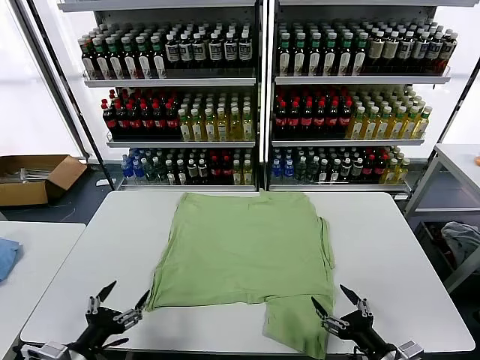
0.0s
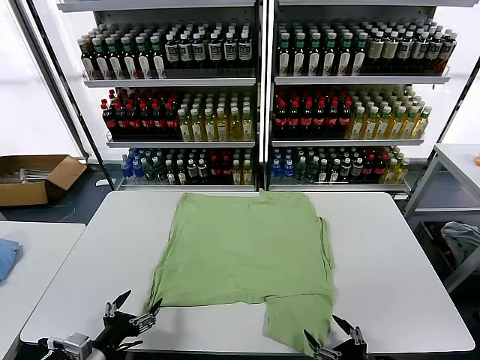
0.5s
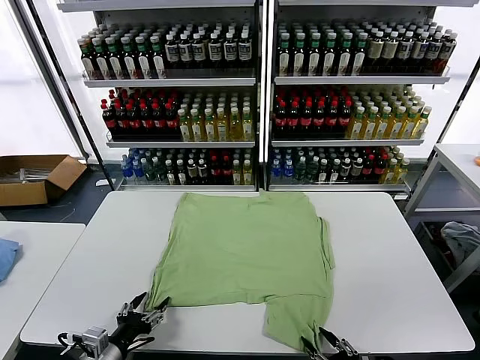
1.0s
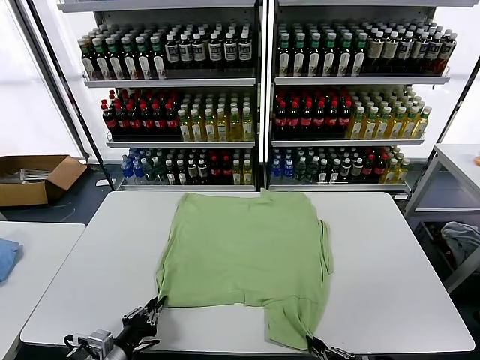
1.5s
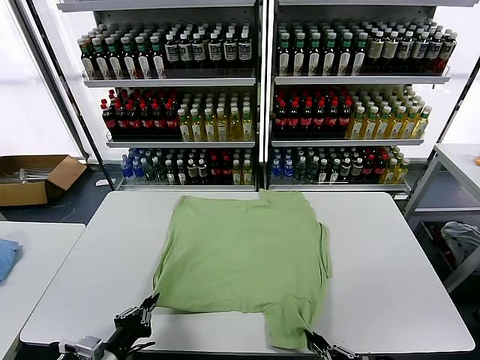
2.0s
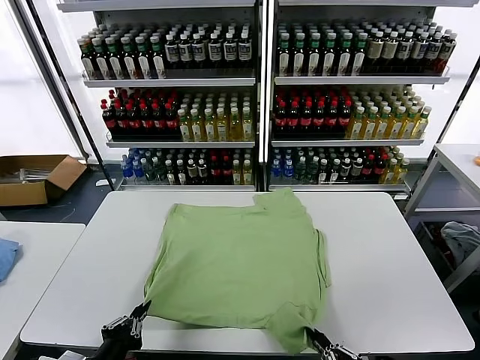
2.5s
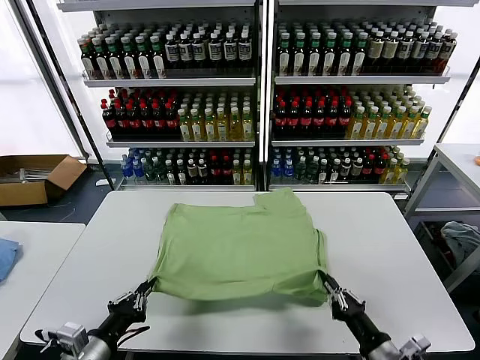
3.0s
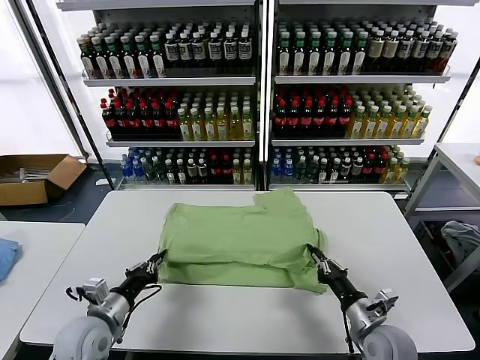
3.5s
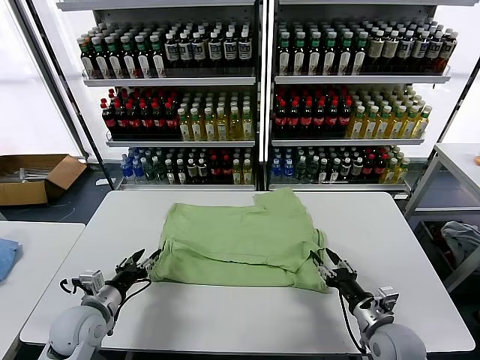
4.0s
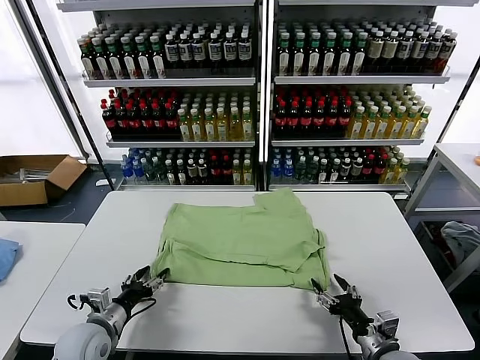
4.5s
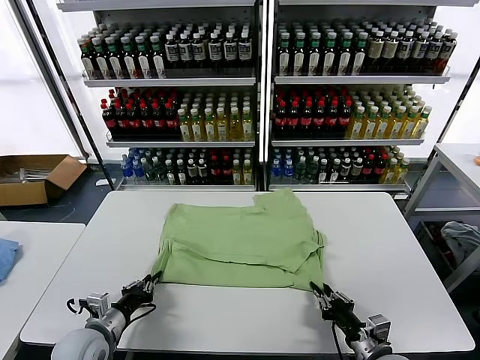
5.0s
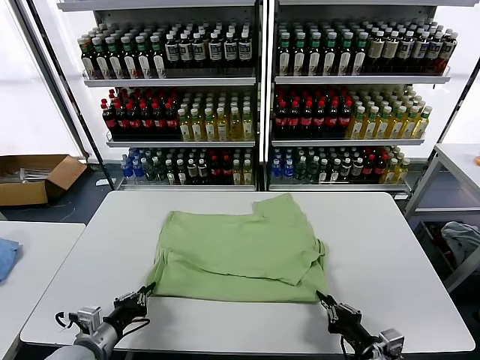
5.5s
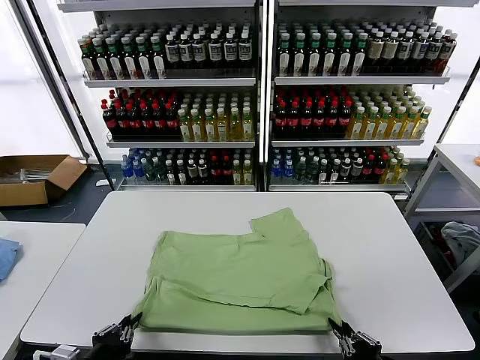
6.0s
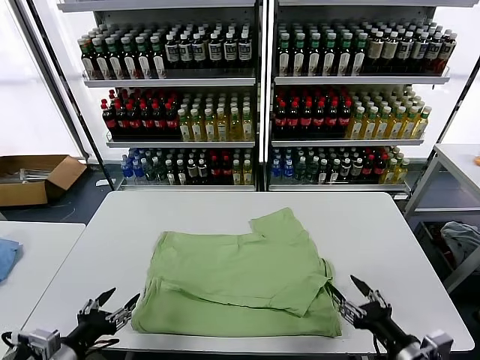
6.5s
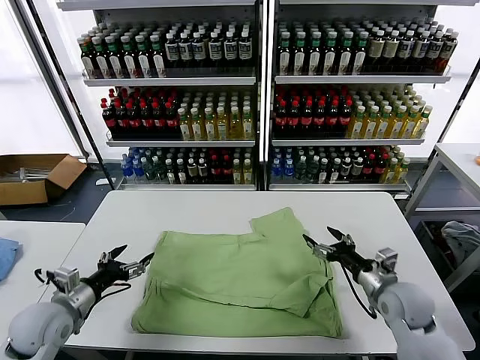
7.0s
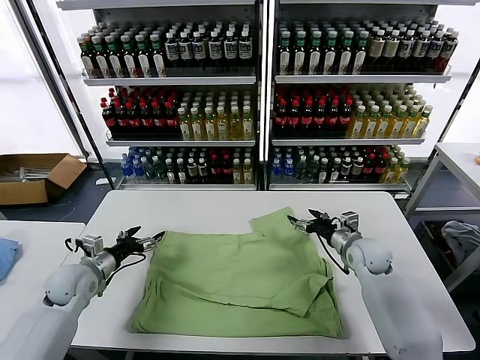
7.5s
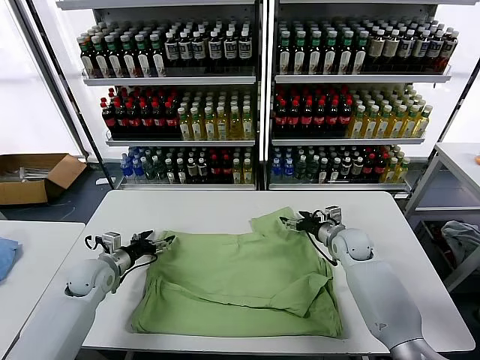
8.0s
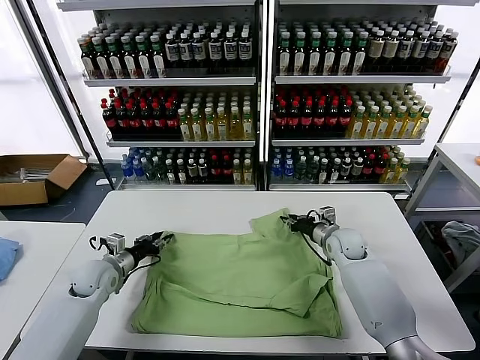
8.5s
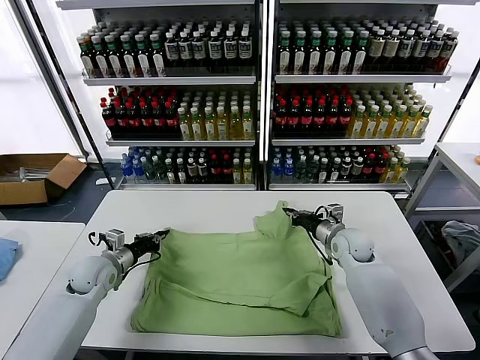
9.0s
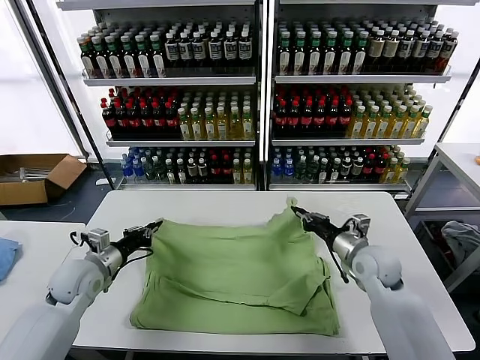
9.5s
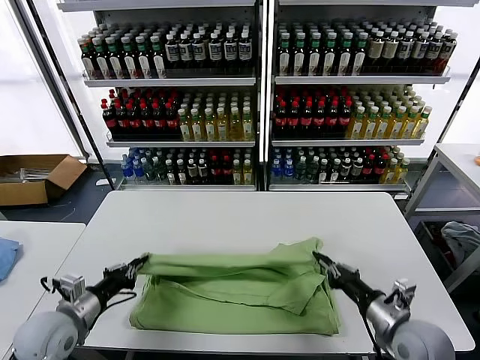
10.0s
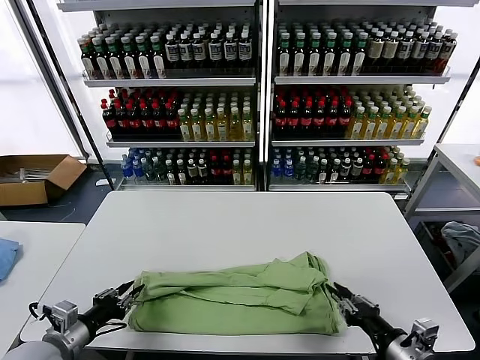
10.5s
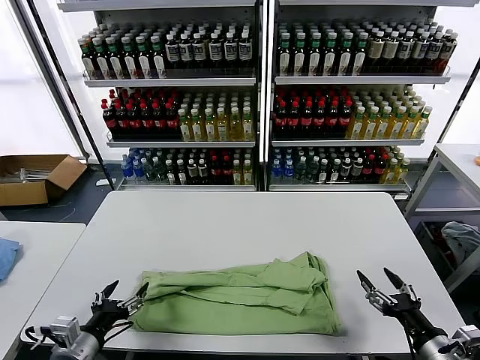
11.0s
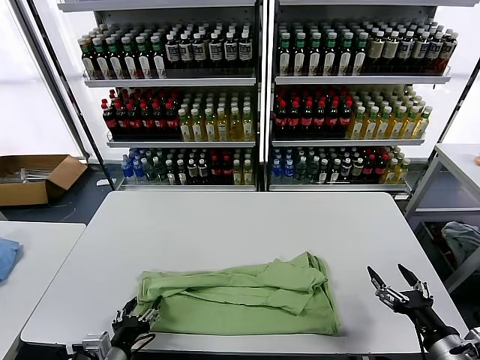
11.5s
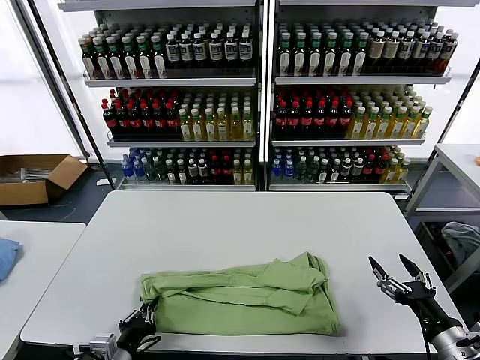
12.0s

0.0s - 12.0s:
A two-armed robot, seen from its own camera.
Task of the whole recording: fold and organize the clothes.
Step, 0.0s - 1.5s: use both grippers simultaneously to clamp the lower edge of the clothing fabric.
Step, 2.0s - 4.0s: use both grippers to drag the lower edge of the fabric forward and fold it over the upper edge.
Step, 4.5s - 6.0s: Drag the clothes downward with both gripper.
Step, 6.5s - 8.5s: use both grippers simultaneously to clamp the upper edge of the clothing fabric.
Step, 9.0s - 10.5s: use both grippers to drag the upper edge of the fabric backward and fold it over the lower edge.
Step, 11.0s - 12.0s: use the left gripper to clamp the left edge of the fabric.
2.0s - 4.0s: The two grippers go some 15 cm forward. The left gripper opens its fingers, while the right gripper opens up.
4.0s - 6.0s: Both grippers move backward, approximately 15 cm. The left gripper closes up. The right gripper closes up.
6.0s - 8.0s: Both grippers travel together forward, approximately 35 cm. The right gripper opens its fingers. The left gripper opens.
8.0s - 10.0s: The right gripper shifts approximately 30 cm backward, and closes. The left gripper is displaced backward by about 15 cm, and closes up.
10.0s - 12.0s: The right gripper shifts roughly 10 cm to the right and backward, and opens up. The left gripper moves to the right, backward and downward, approximately 15 cm, and opens, then closes again.

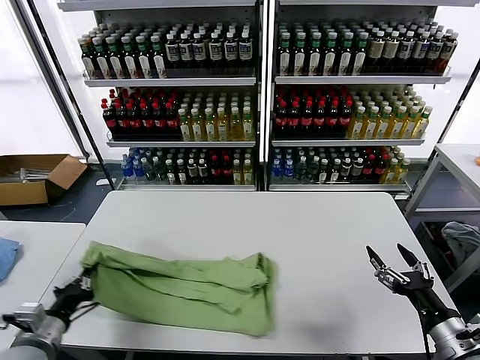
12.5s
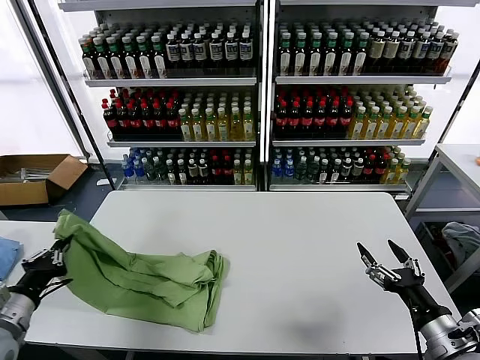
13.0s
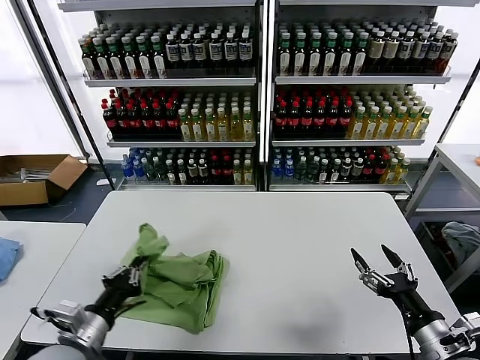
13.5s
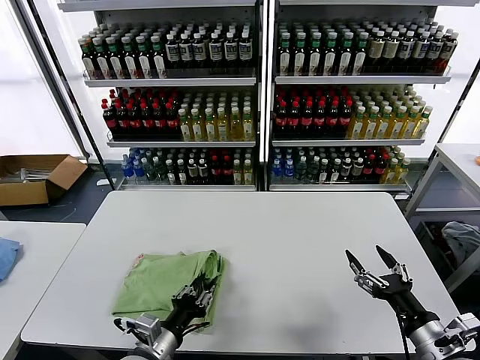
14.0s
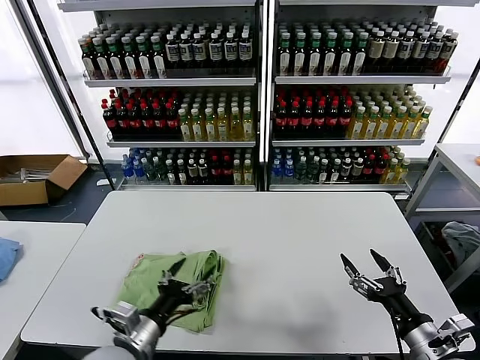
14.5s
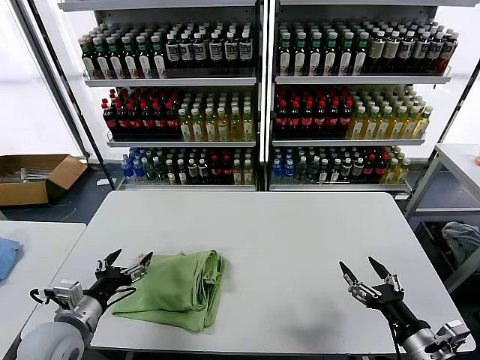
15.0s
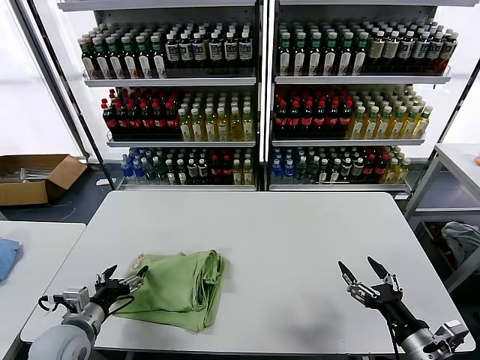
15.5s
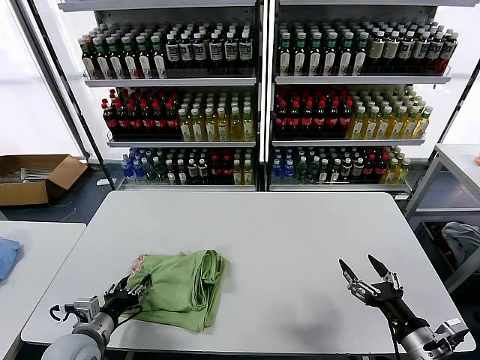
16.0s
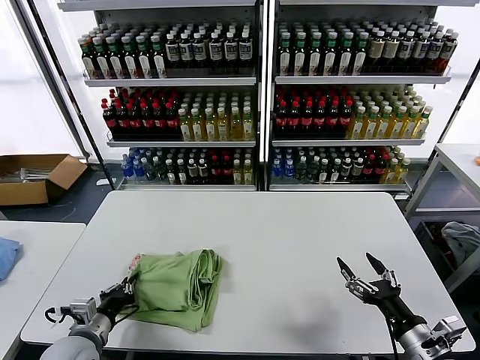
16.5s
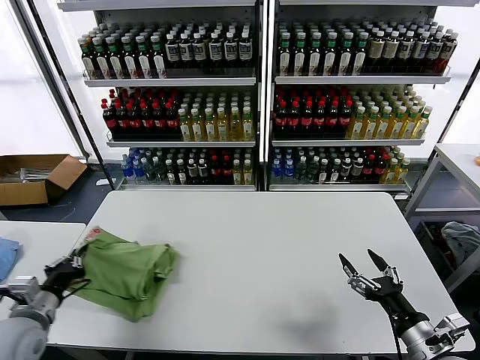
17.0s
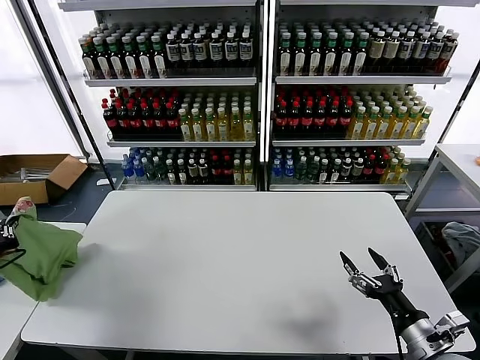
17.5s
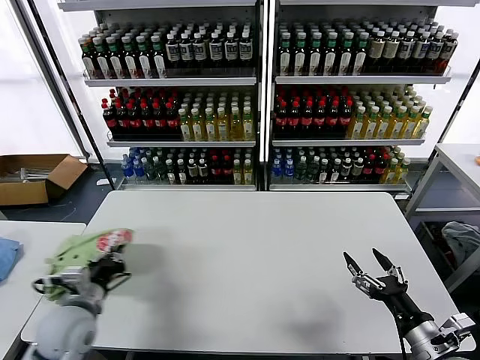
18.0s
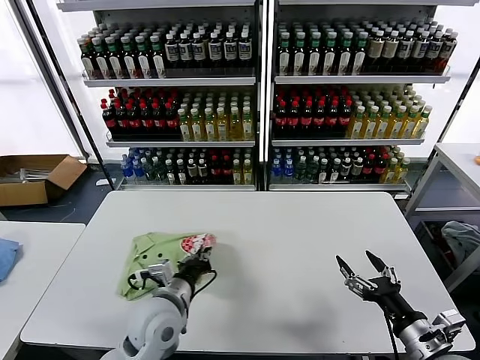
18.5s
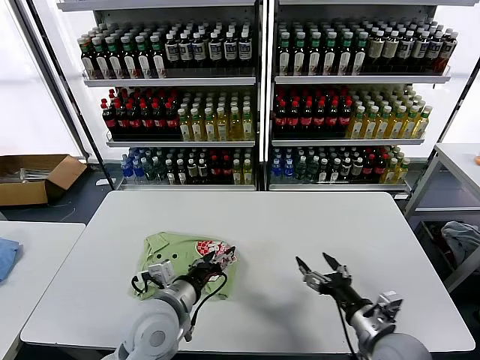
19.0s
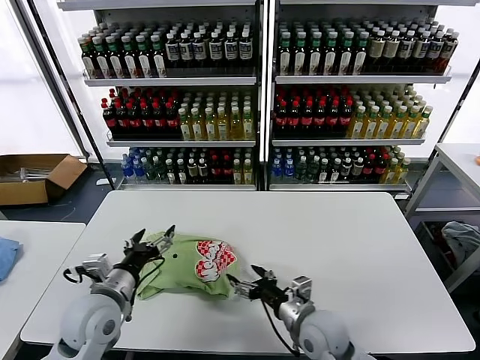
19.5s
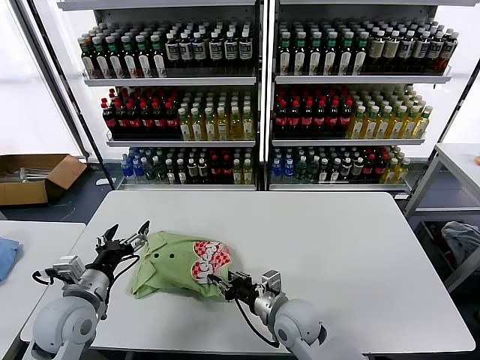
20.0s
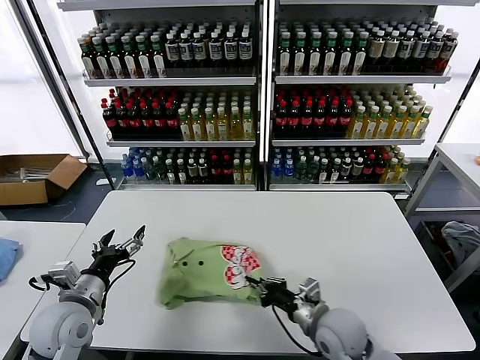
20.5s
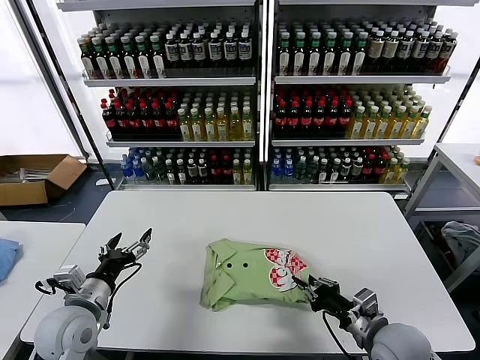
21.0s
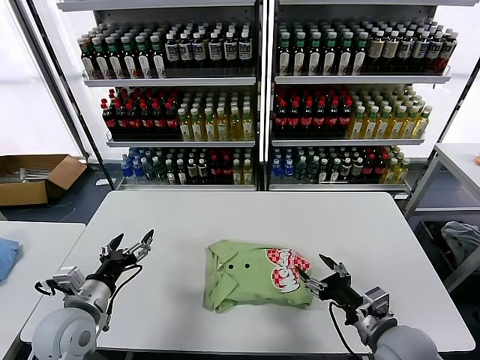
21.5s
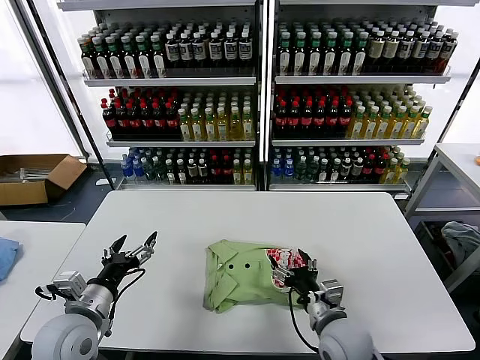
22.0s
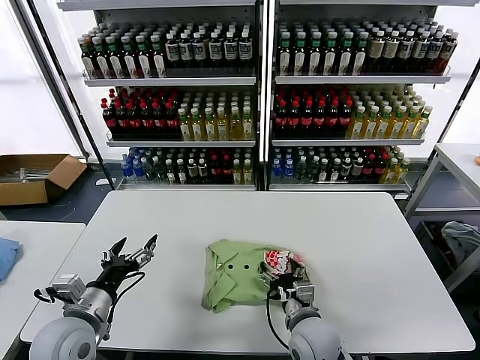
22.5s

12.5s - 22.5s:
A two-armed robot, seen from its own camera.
Task of the whole recording: fold and organize the clothes.
Step, 12.5s - 14.0s: use the left gripper to drag the left edge of the fabric to the left and folds it over the right edge.
Step, 14.5s - 18.5s: Flip the folded clothes over with left gripper.
12.5s - 14.5s: The left gripper heads to the right, covering roughly 15 cm, and opens.
14.5s - 16.5s: The left gripper moves to the left and downward, about 15 cm, and closes.
16.5s - 18.5s: The left gripper is displaced to the right by approximately 15 cm.
18.5s - 20.5s: The right gripper heads to the left, forward and downward, covering approximately 20 cm, and closes its fingers. Meanwhile the left gripper shifts roughly 15 cm to the left, and opens.
20.5s - 22.5s: The right gripper goes to the right and returns, about 10 cm each way, and opens up.

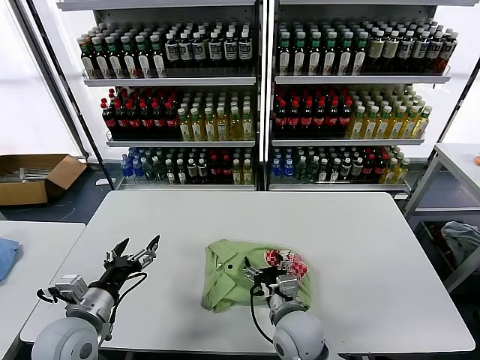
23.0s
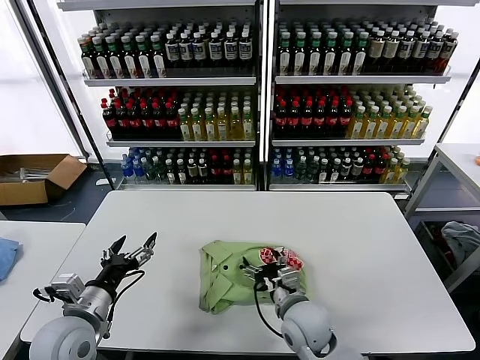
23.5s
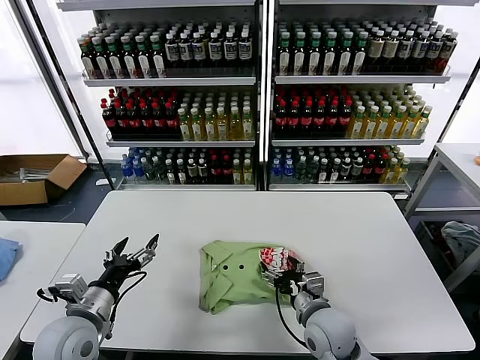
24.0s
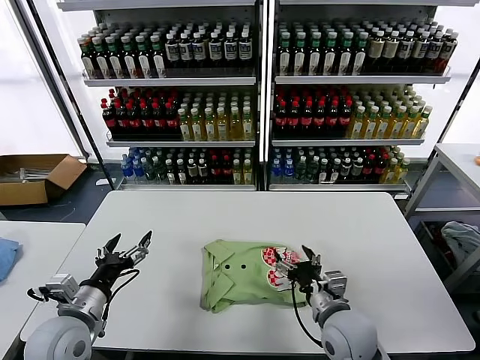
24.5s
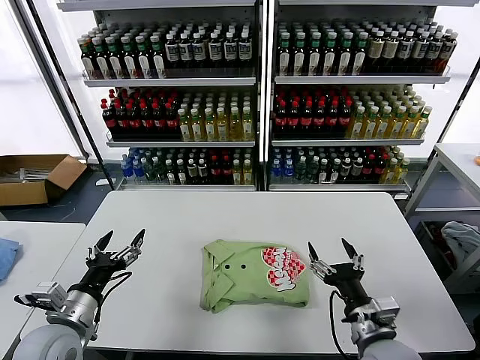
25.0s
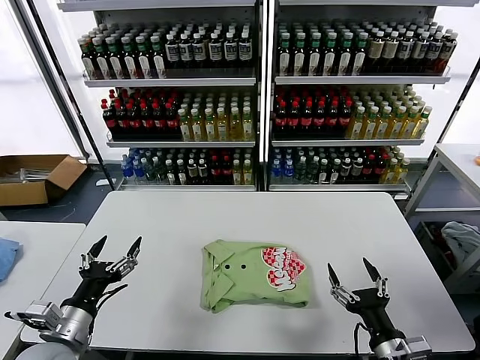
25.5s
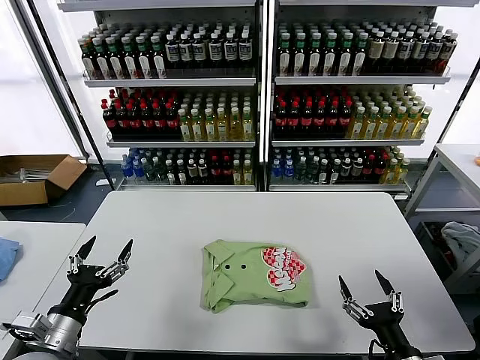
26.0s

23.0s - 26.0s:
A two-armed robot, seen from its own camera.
Task of the whole recording: fold and organize the clothes.
23.0s - 24.5s: The right gripper heads to the right, covering about 10 cm.
24.5s - 26.0s: The left gripper heads backward, covering roughly 5 cm, while the right gripper shifts approximately 20 cm backward and to the right.
